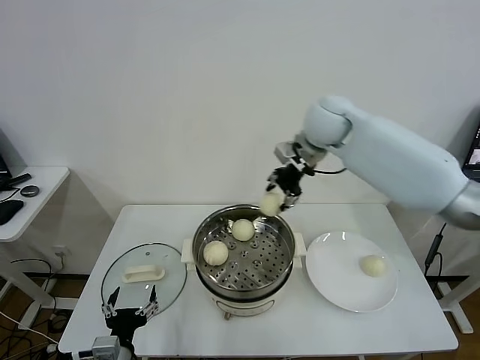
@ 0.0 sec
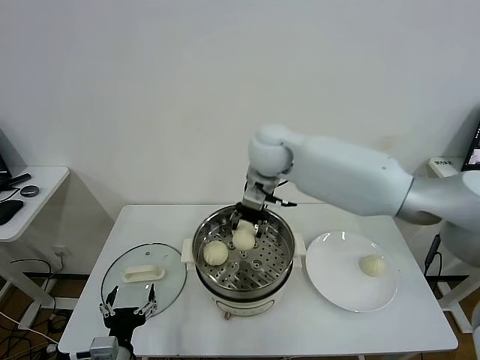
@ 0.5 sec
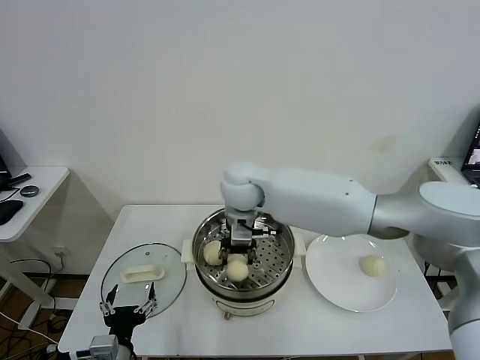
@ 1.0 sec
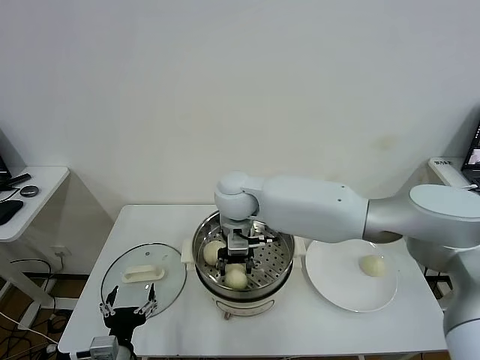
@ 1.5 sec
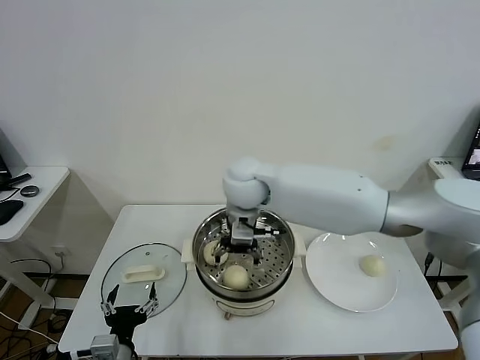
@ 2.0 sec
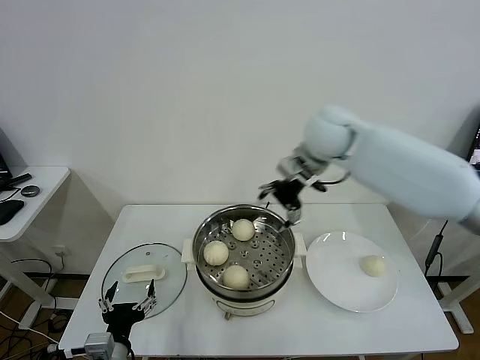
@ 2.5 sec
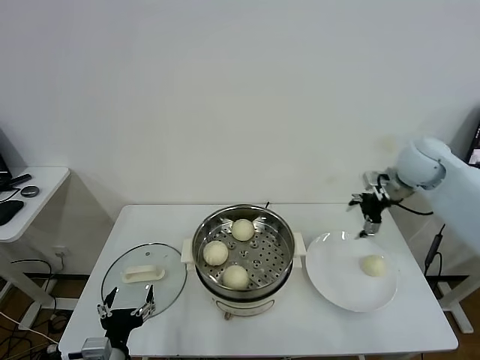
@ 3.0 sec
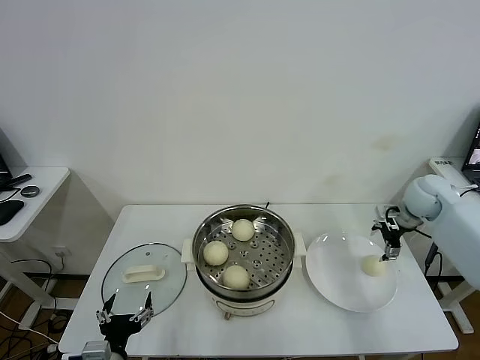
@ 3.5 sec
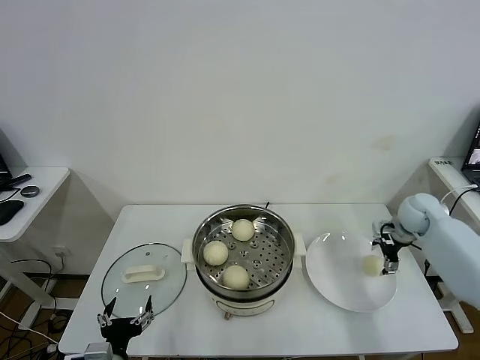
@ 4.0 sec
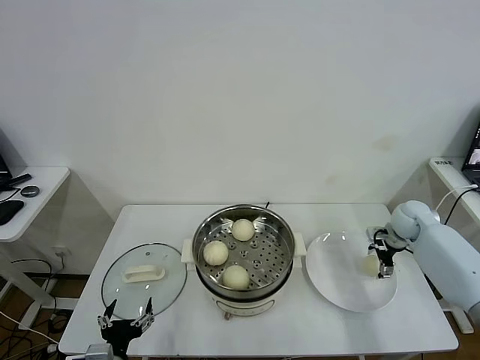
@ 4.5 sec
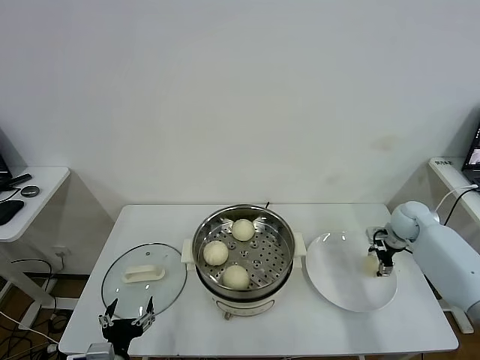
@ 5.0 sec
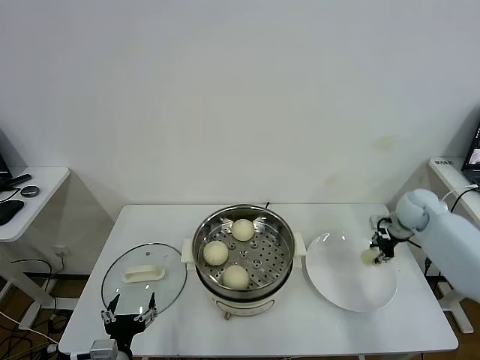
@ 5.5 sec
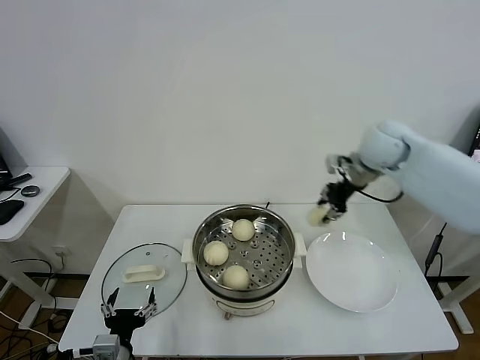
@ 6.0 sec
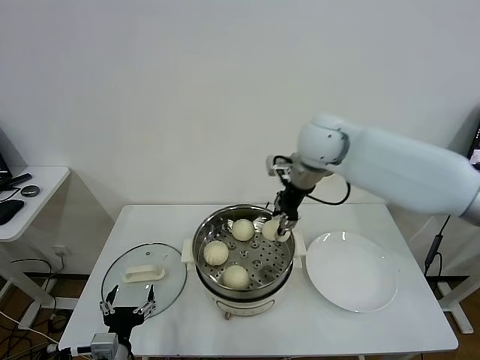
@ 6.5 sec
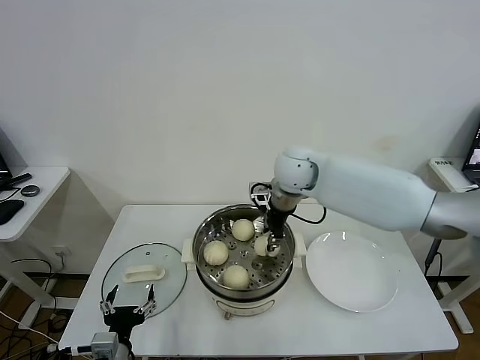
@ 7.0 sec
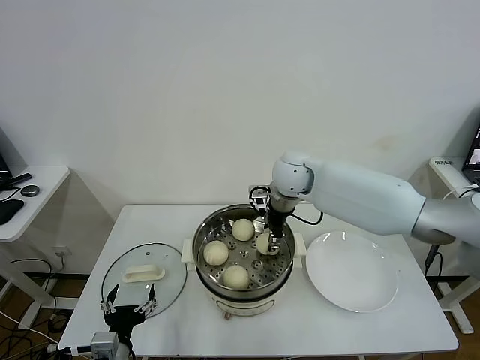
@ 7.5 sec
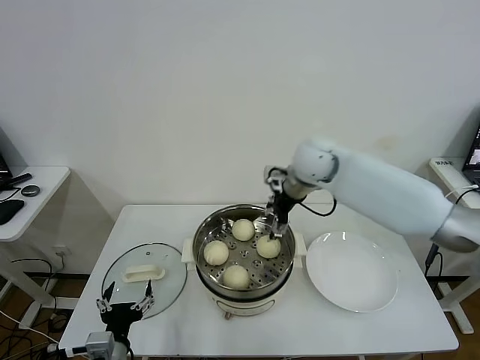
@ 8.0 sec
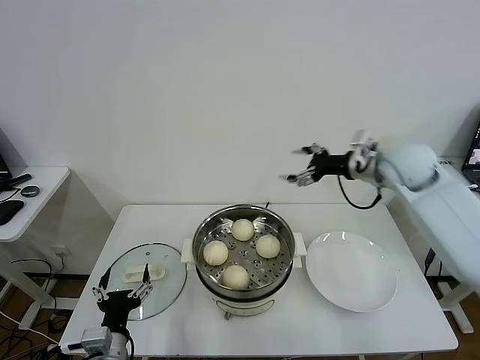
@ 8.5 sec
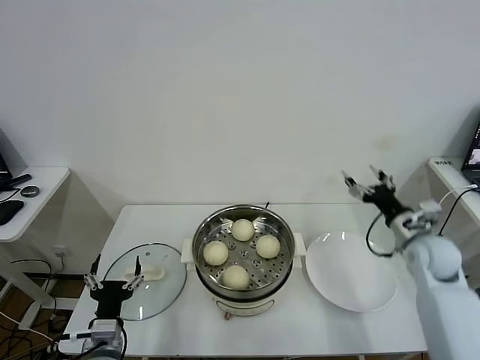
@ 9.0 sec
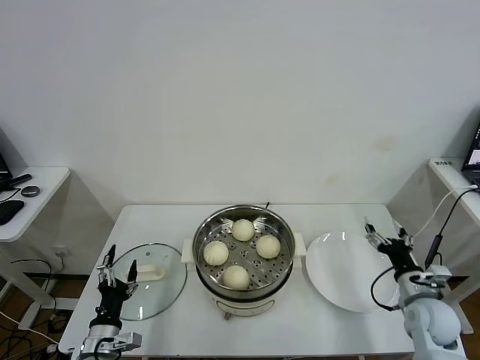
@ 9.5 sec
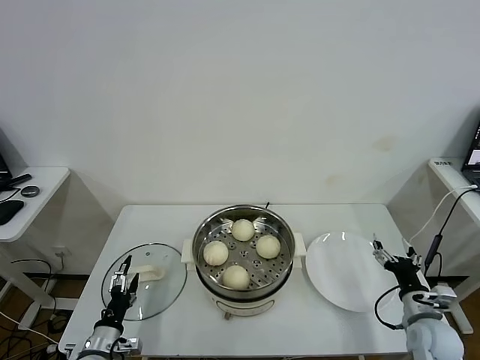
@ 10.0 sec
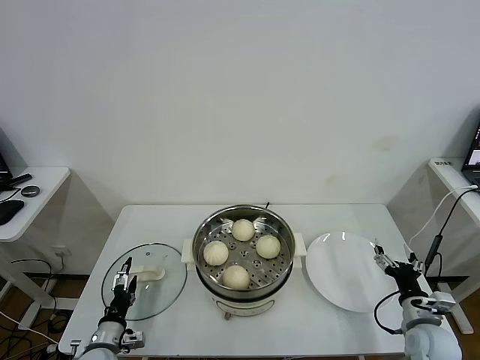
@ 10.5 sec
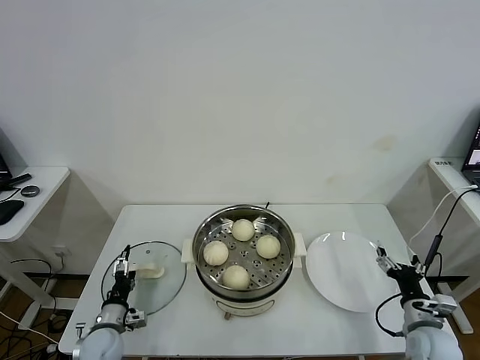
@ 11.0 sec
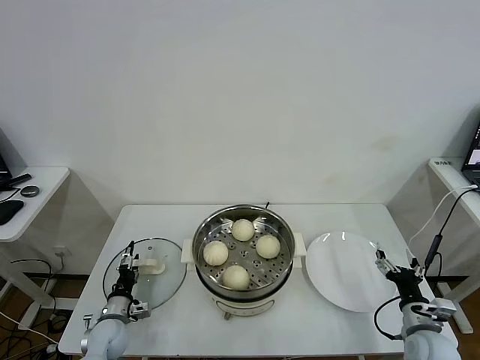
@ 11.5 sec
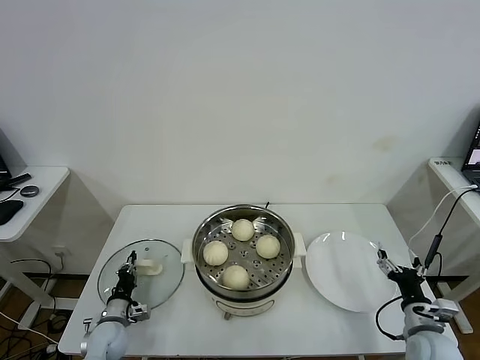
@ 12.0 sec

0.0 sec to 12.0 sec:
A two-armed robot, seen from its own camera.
Task of the whole recording: take steamed baozi put them in steamer.
Step, 0.0 sec to 2.0 sec: Place the baozi on the steamer with right gripper.
Step, 2.5 sec to 5.0 sec: Grasp the baozi in the plate with right gripper.
Step, 5.5 sec to 7.5 sec: Place the baozi on the steamer with right gripper.
0.0 sec to 2.0 sec: The right gripper travels to the left, downward and backward by about 20 cm, and opens up.
2.0 sec to 4.0 sec: The right gripper is displaced to the right by about 40 cm.
4.0 sec to 6.0 sec: The right gripper goes some 25 cm upward and to the left, and closes up.
6.0 sec to 8.0 sec: The right gripper goes about 15 cm to the left, and opens its fingers.
8.0 sec to 10.0 sec: The right gripper shifts roughly 50 cm backward, downward and to the right, while the left gripper heads downward and to the left, covering some 10 cm.
10.0 sec to 12.0 sec: The left gripper heads forward and downward, covering some 10 cm, and closes its fingers.

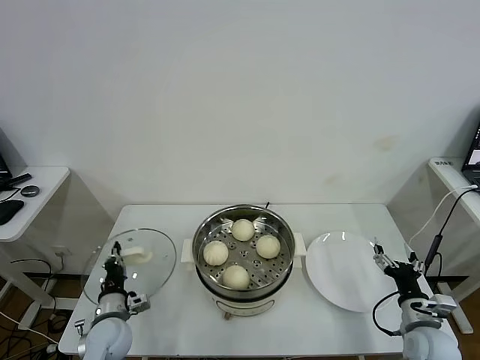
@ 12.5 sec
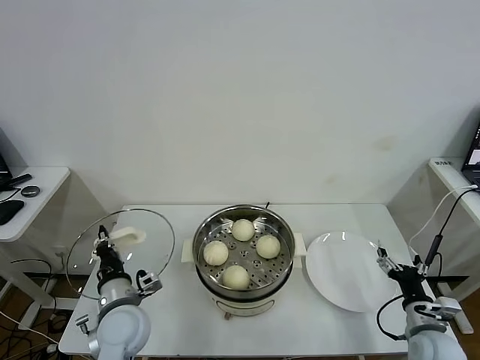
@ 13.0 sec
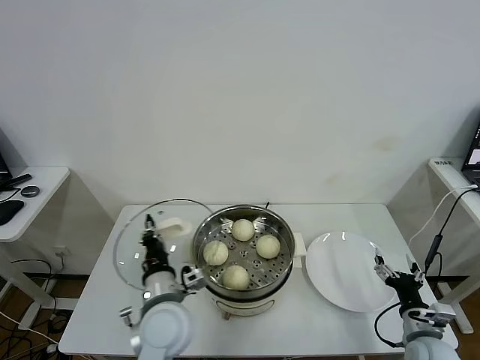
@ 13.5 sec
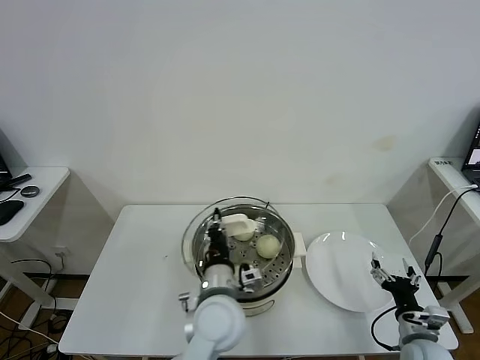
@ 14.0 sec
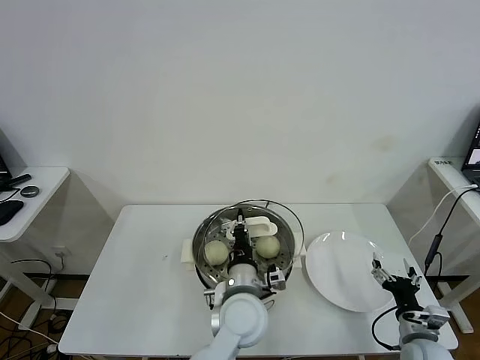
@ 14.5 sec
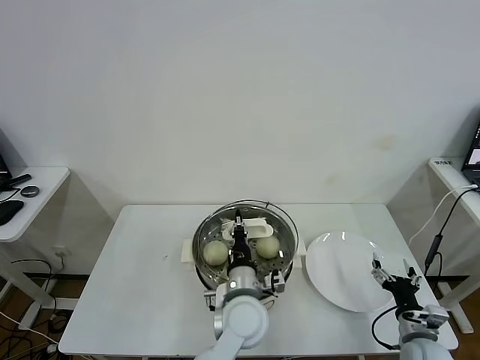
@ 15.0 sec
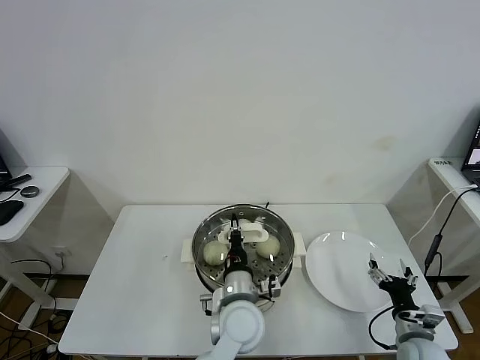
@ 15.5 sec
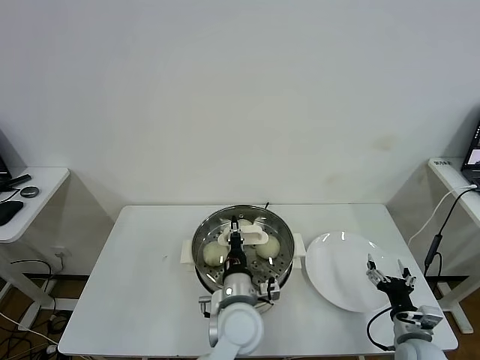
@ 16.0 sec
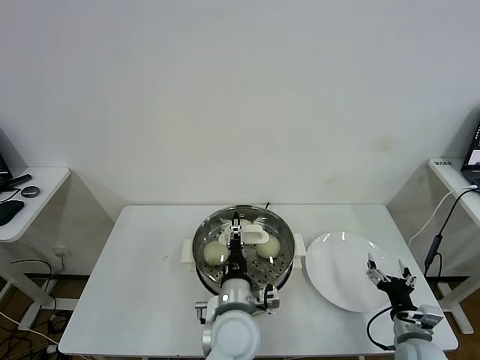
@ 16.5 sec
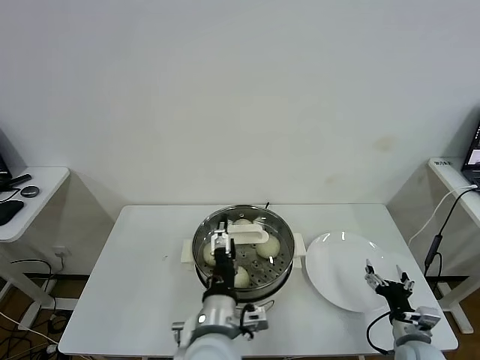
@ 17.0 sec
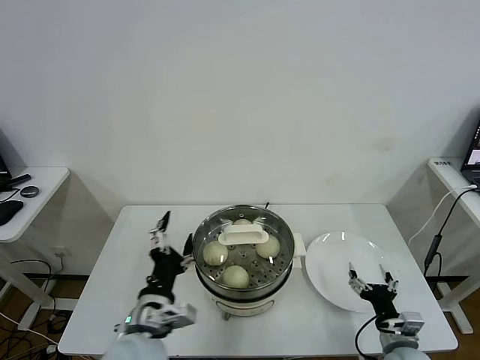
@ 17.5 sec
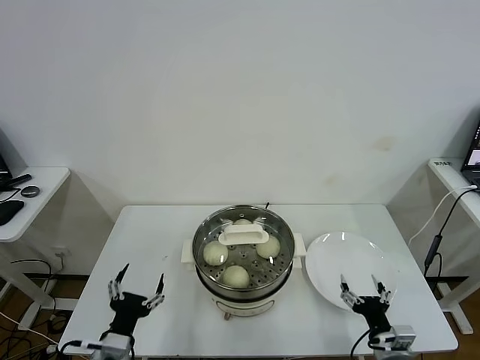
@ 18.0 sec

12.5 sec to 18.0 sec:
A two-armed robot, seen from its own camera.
Task of the whole recording: take steamed baozi put them in steamer.
Step, 12.5 sec to 16.5 sec: Place the pot lid on the steamer with left gripper.
12.5 sec to 14.5 sec: The left gripper goes approximately 35 cm to the right and upward.
14.5 sec to 16.0 sec: There are only small adjustments of the grippers.
16.0 sec to 18.0 sec: The left gripper goes some 25 cm to the left and backward, and opens its fingers. Meanwhile the right gripper shifts approximately 5 cm to the left.
